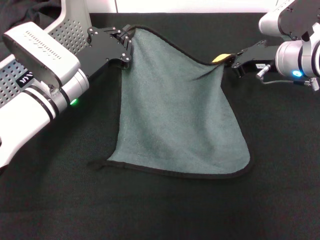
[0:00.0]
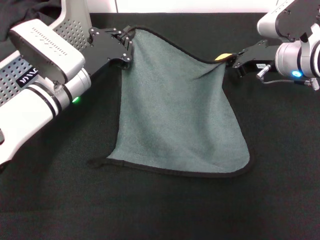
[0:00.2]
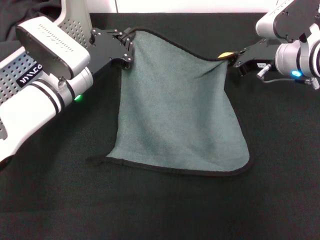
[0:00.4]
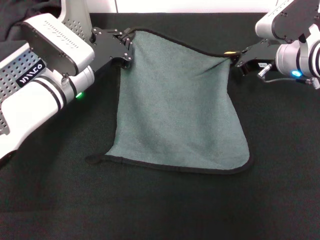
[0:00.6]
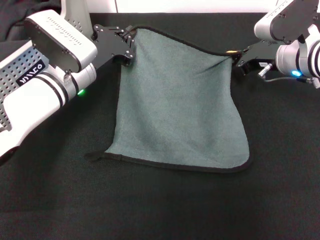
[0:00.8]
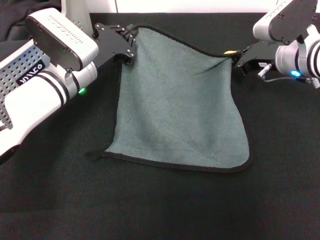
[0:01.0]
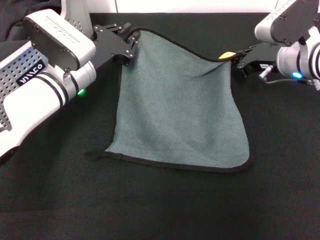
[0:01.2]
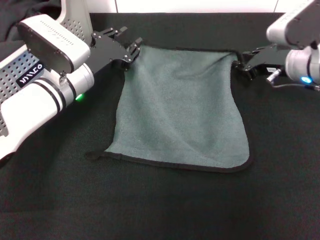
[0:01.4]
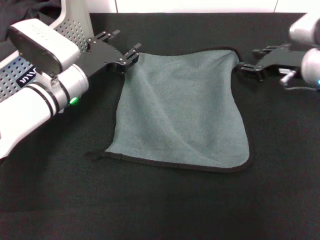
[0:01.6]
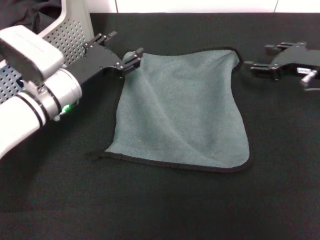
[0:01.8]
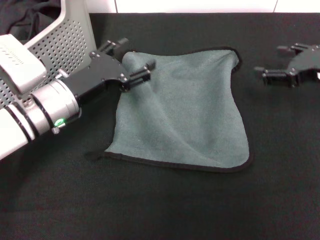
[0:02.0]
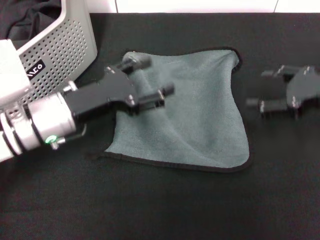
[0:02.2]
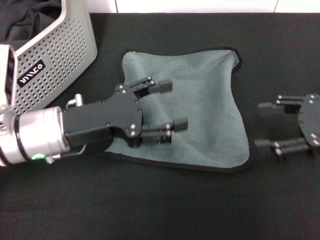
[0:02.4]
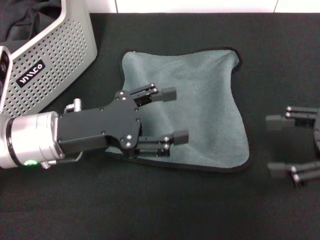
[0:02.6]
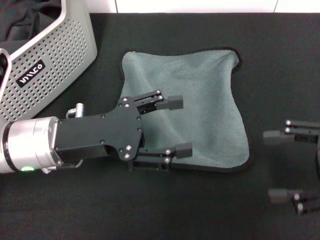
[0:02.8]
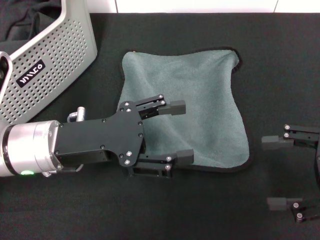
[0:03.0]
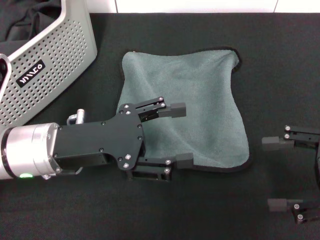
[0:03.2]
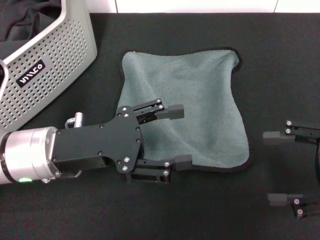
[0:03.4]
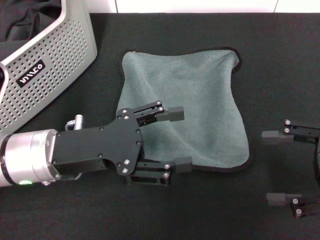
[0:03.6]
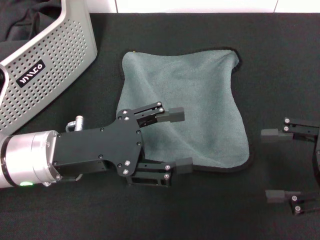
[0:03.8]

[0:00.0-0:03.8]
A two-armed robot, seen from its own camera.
Task of the whole recording: pick up the towel from the storage box and lay it flat on the black tablecloth.
0:00.0 to 0:01.2: The grippers stay close to where they were, moving slightly.
0:01.2 to 0:02.6: The right gripper travels backward, to the right and upward by approximately 20 cm, and opens up, while the left gripper is displaced backward by approximately 10 cm, and opens up.
0:02.6 to 0:03.8: There are only small adjustments of the grippers.
